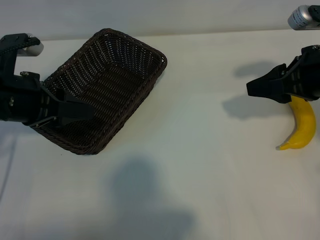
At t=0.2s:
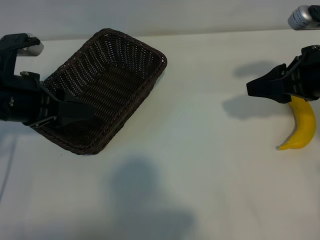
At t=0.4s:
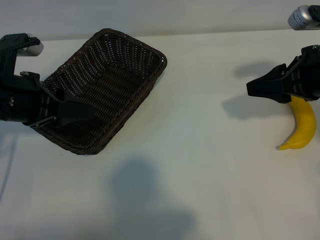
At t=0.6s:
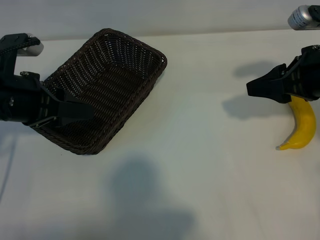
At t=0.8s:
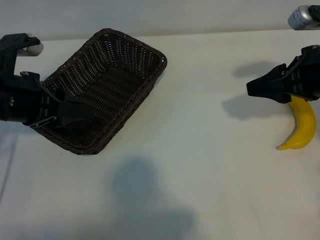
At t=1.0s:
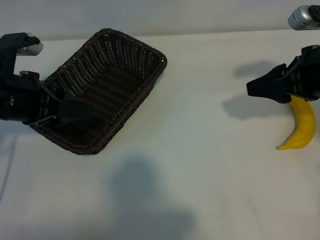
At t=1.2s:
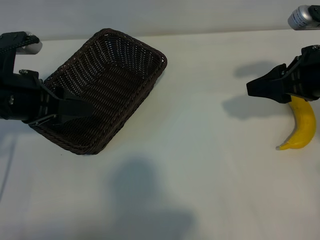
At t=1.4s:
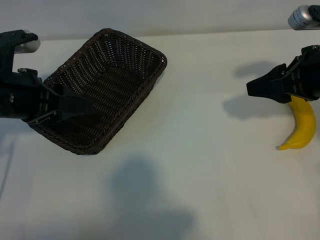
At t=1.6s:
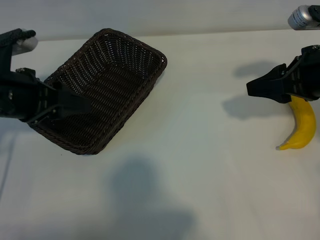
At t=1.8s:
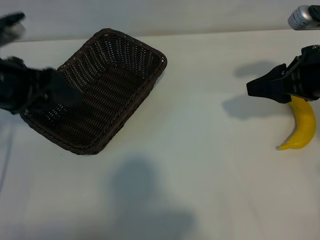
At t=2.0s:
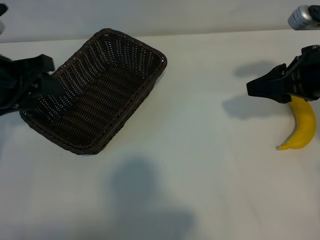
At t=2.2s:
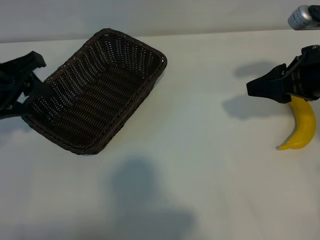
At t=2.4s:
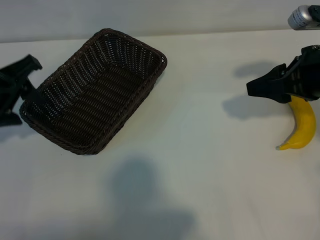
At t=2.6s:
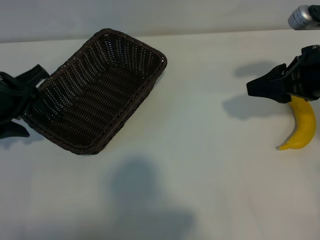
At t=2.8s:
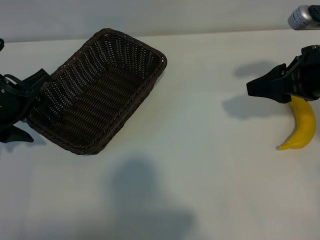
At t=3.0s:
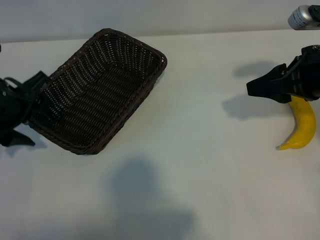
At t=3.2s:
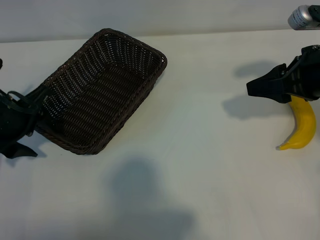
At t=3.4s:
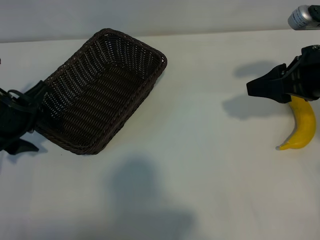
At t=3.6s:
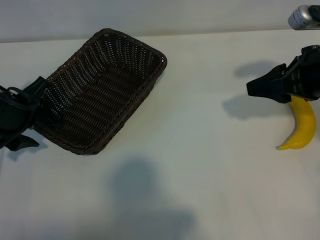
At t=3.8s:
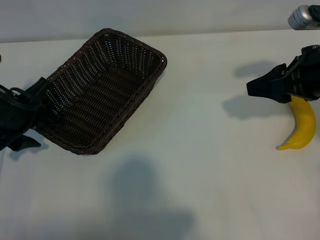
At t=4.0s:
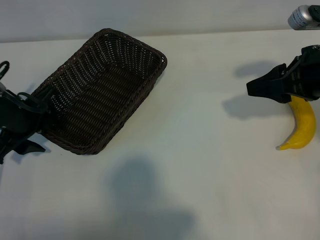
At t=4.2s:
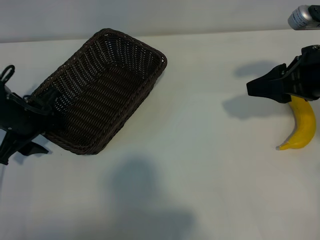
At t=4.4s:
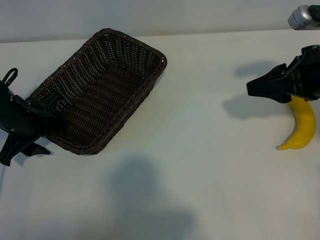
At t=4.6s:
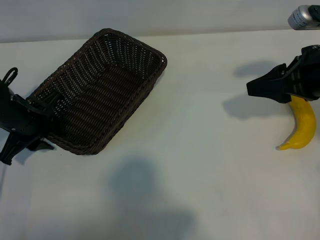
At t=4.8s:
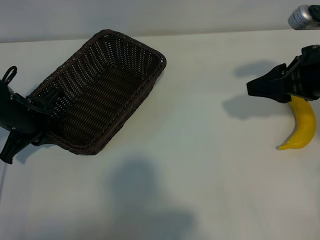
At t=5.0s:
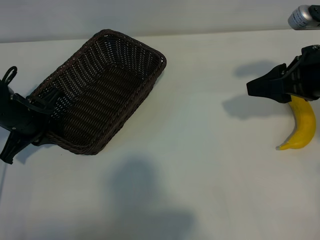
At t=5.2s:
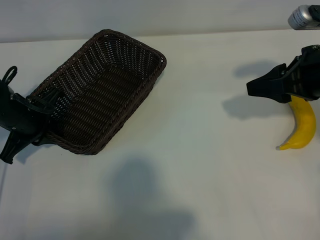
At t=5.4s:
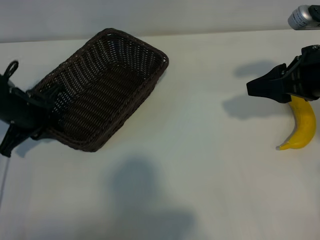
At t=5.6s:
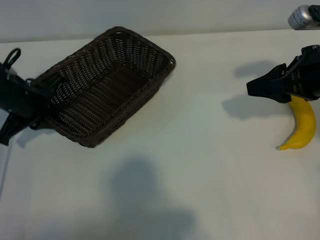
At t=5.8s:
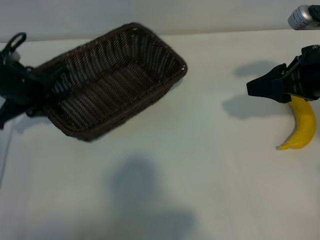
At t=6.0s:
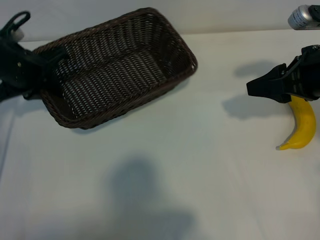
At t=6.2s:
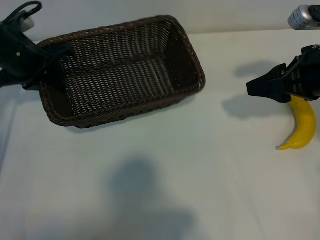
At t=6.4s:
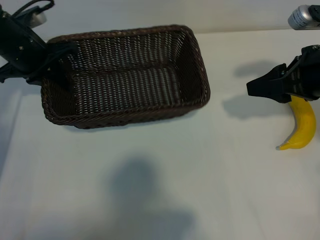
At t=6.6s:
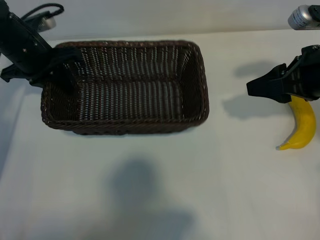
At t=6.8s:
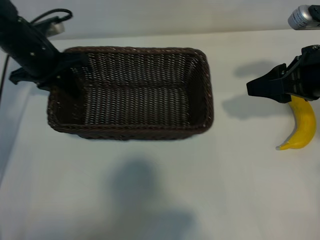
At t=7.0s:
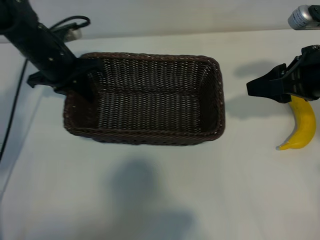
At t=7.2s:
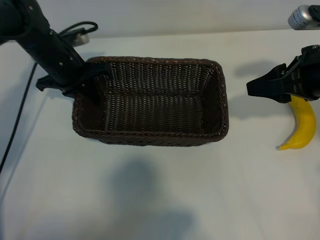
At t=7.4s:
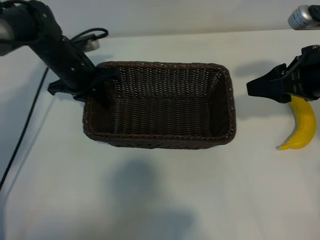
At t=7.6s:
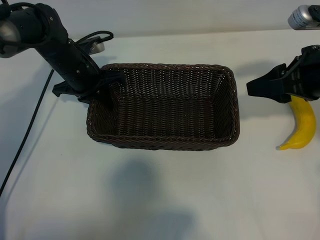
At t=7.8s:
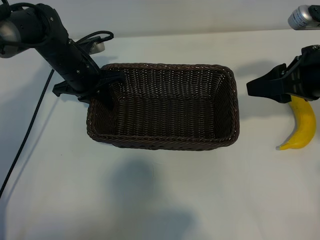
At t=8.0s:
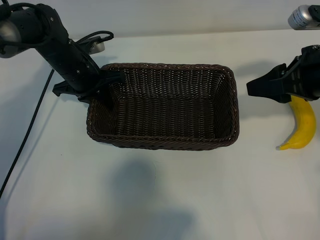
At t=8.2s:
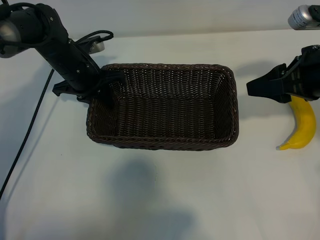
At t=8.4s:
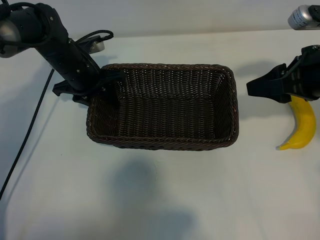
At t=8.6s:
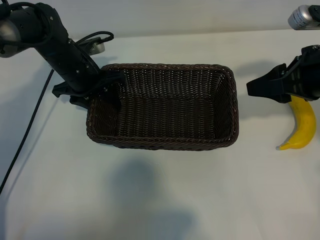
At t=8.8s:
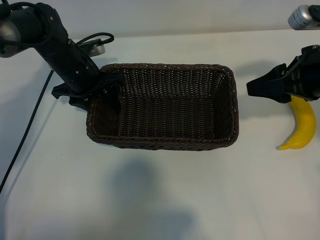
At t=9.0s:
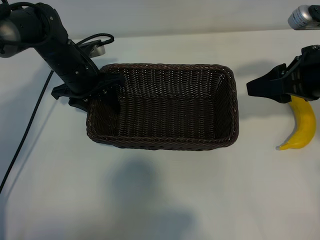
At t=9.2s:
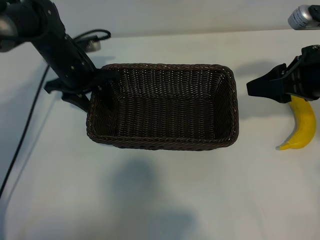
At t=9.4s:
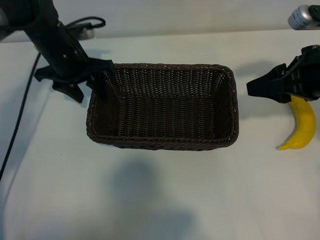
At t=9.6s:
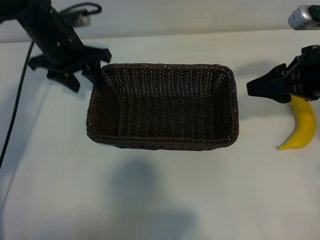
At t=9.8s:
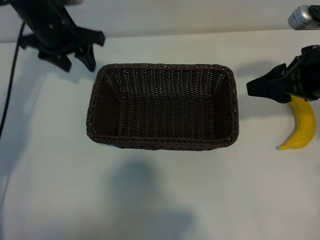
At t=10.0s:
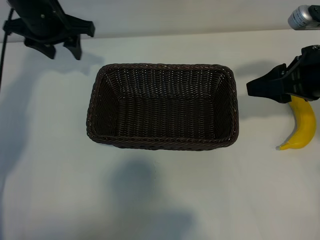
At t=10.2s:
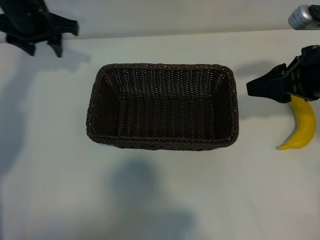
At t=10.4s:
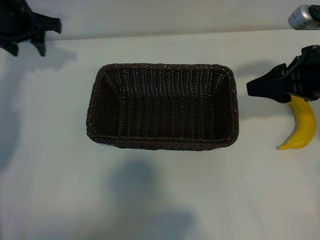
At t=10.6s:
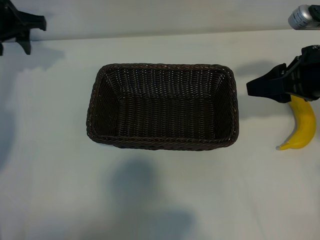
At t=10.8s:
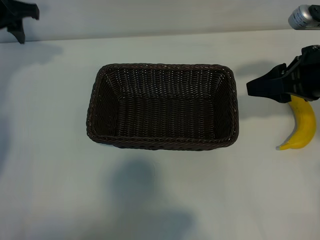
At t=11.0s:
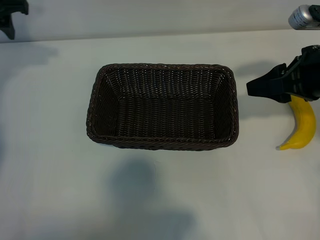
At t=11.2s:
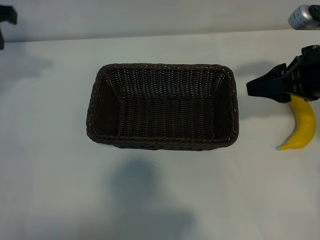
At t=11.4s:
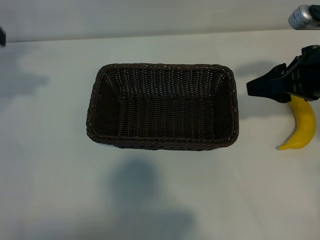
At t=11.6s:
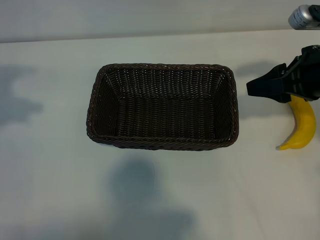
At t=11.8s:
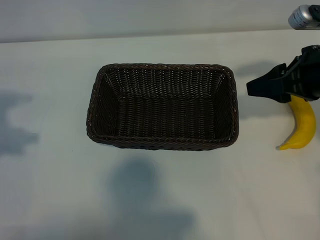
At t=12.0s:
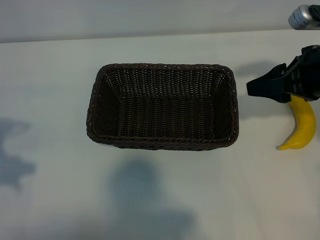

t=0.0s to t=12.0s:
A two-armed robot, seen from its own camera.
Task of the whole recording: pick up the banana and put it into the basket.
Step, t=1.0s to t=5.0s: Grasp the basket with the left gripper.
Step, t=5.4s to t=9.2s: Place the basket in the center of the table with the left gripper.

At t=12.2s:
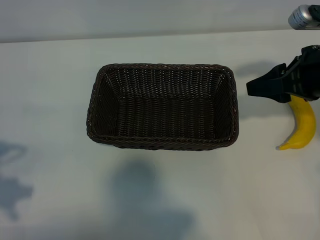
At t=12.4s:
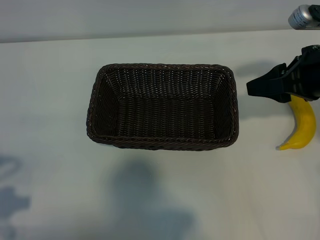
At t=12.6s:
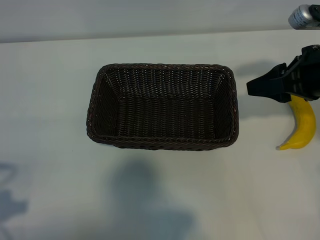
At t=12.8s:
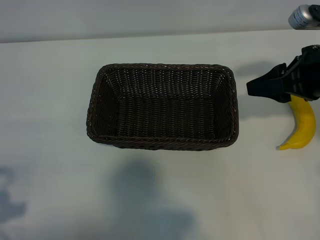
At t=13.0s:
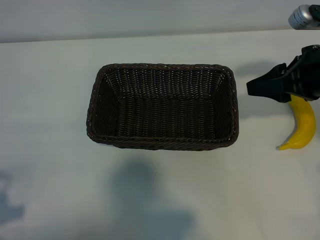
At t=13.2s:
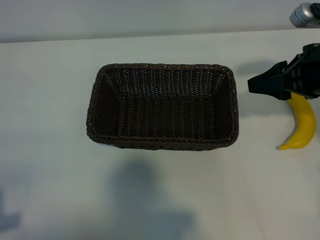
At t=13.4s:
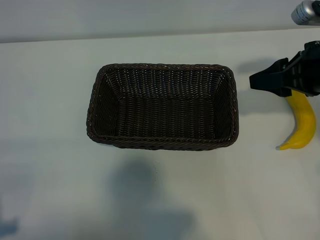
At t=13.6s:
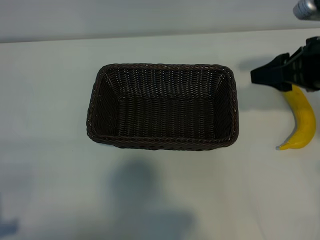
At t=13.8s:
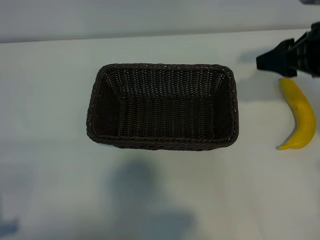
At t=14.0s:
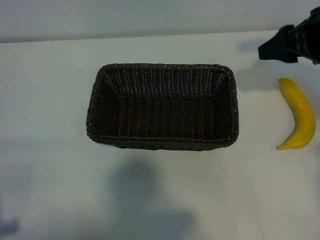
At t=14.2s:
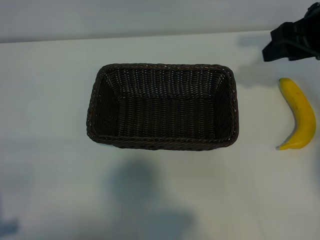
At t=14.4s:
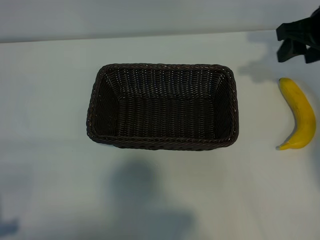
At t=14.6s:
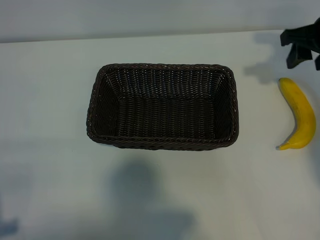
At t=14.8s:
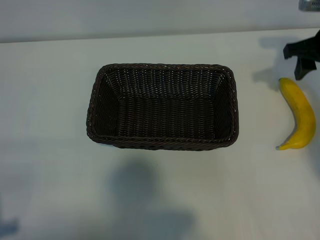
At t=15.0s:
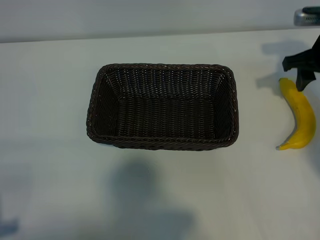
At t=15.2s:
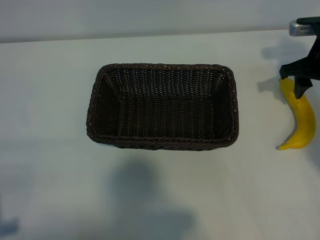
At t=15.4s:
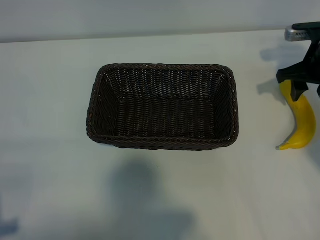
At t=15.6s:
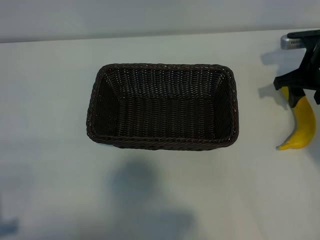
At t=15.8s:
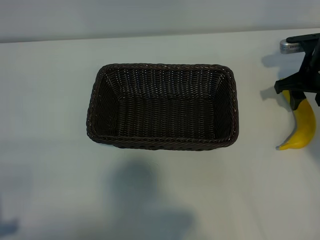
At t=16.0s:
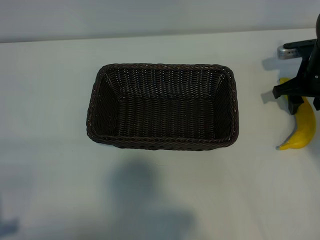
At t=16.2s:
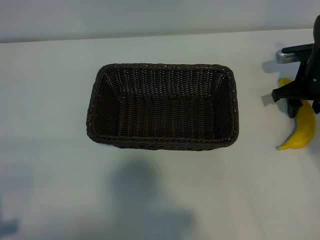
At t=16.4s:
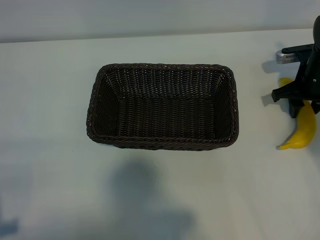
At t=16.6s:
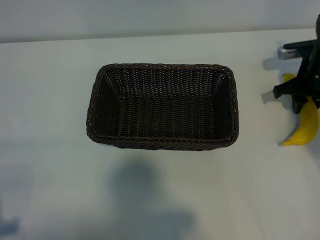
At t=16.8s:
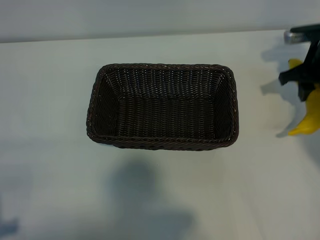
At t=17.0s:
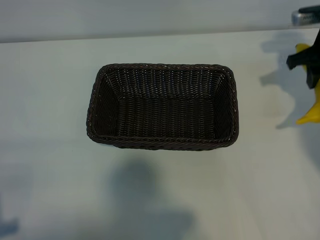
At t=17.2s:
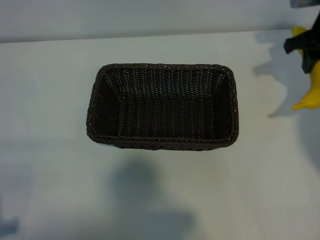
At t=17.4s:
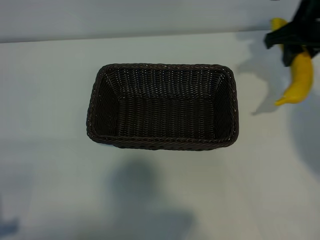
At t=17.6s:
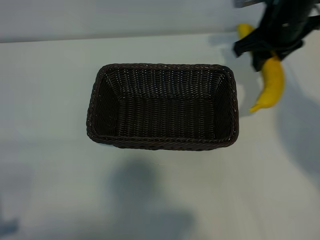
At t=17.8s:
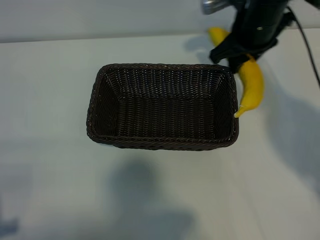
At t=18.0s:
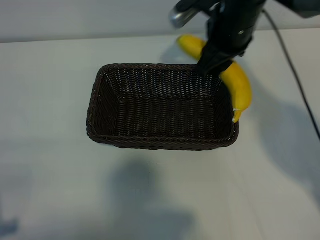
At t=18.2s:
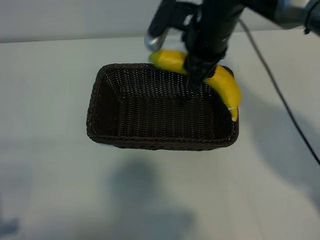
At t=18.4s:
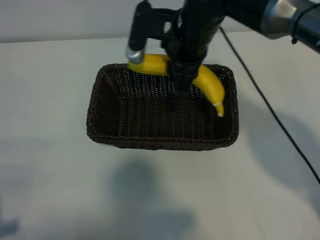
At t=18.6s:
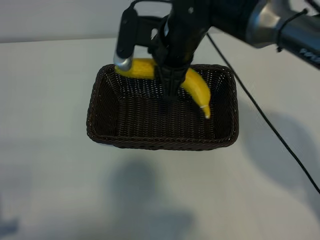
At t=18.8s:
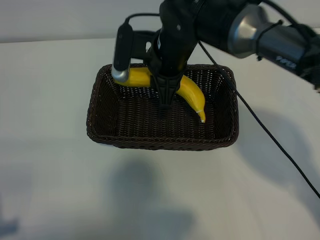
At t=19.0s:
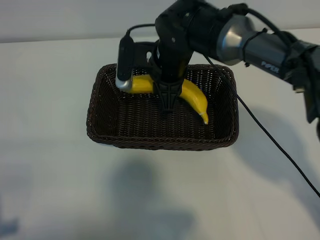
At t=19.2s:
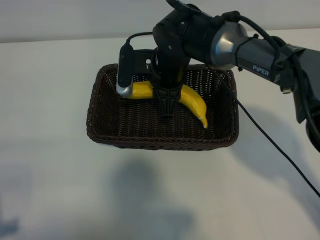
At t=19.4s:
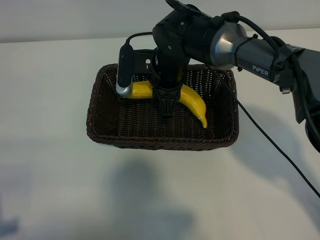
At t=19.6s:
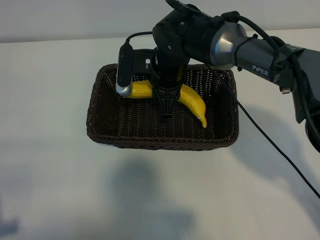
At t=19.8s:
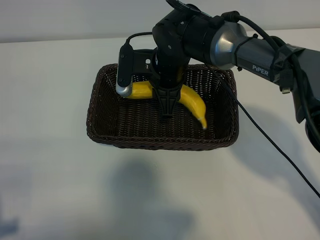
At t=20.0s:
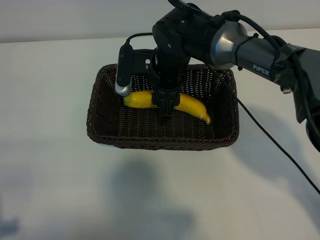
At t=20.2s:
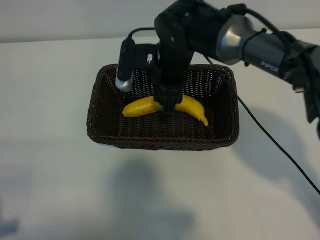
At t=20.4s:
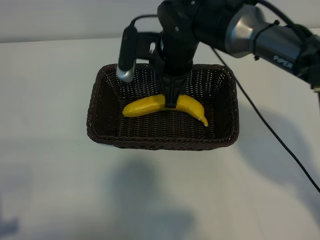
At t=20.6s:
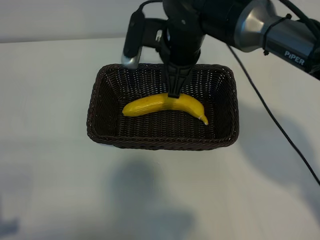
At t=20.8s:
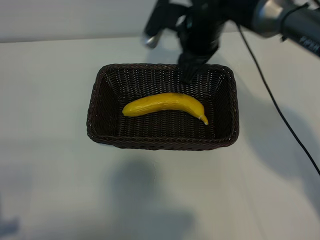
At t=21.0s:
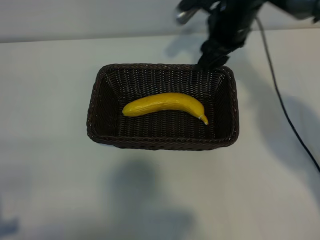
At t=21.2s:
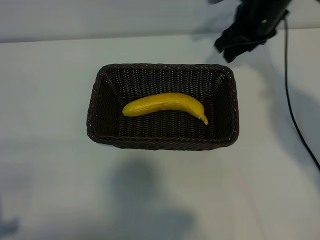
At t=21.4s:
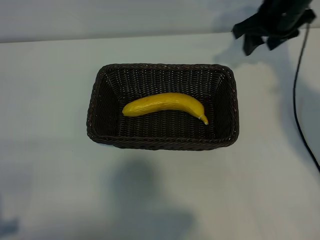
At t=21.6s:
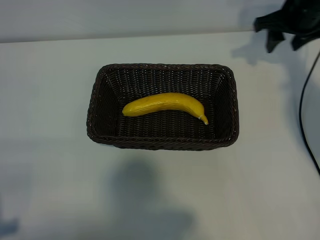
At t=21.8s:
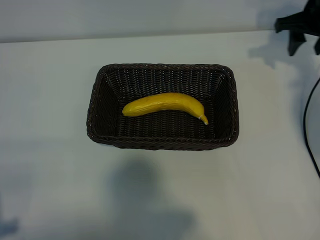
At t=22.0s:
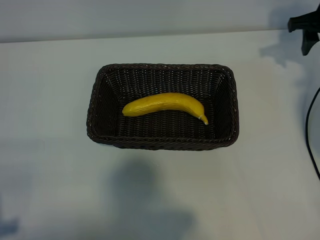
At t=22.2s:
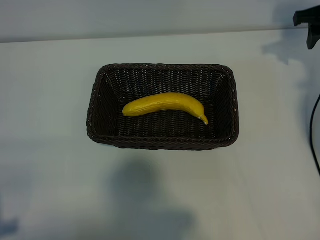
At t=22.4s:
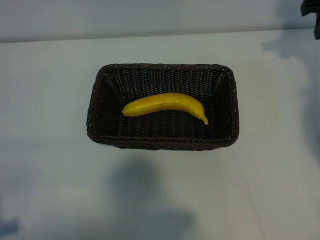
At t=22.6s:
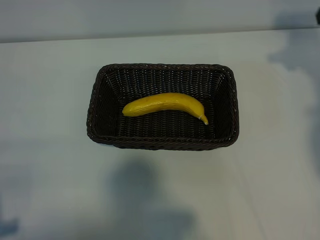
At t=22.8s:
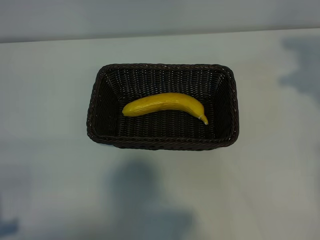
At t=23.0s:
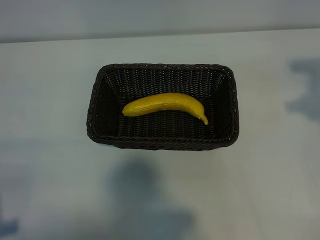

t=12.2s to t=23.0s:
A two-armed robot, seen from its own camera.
Task of the whole recording: pick up the banana and put it into the basket.
Step, t=12.2s to t=16.4s: Grasp the banana with right gripper.
Step, t=16.6s to t=20.4s: Place the banana in the basket with right gripper.
